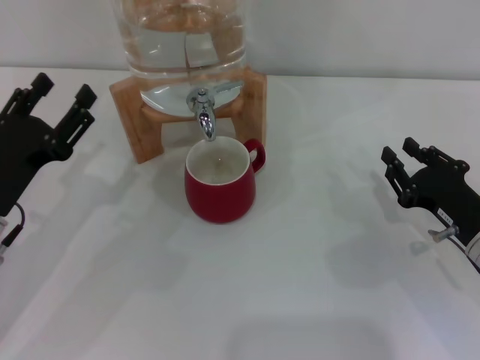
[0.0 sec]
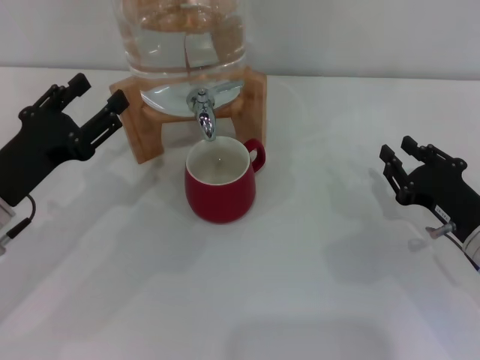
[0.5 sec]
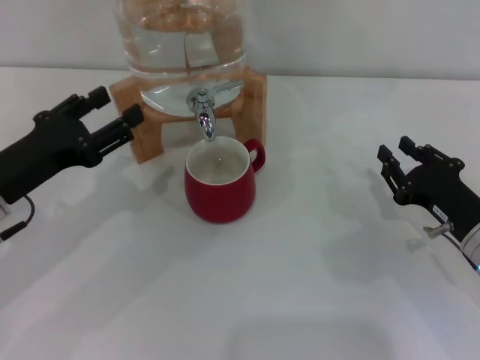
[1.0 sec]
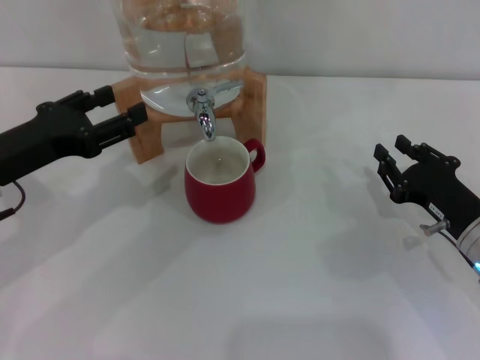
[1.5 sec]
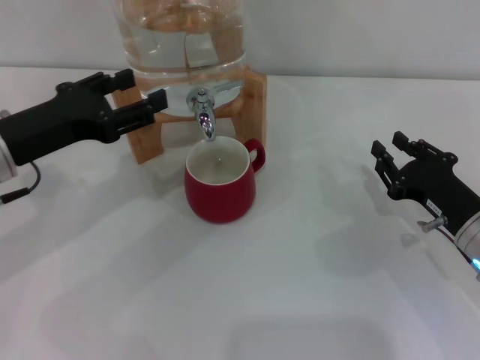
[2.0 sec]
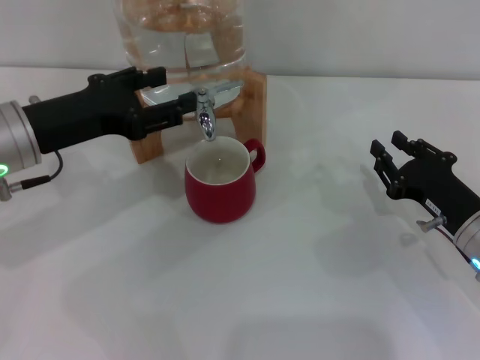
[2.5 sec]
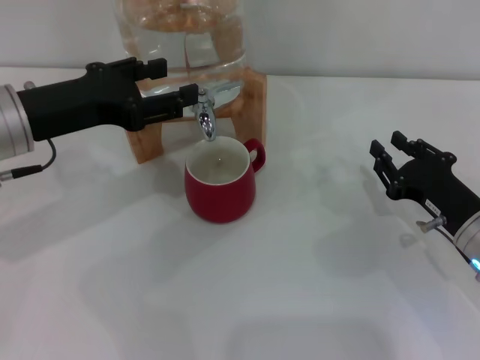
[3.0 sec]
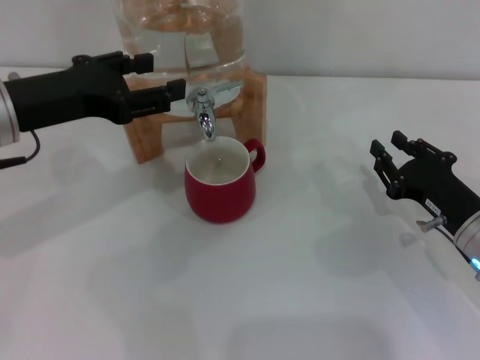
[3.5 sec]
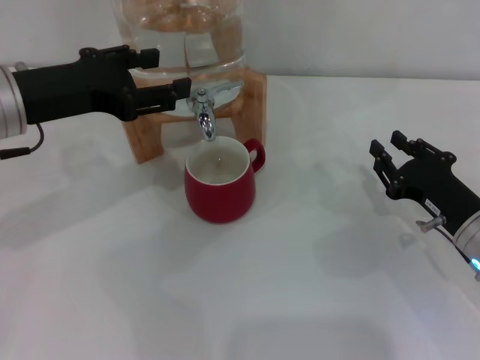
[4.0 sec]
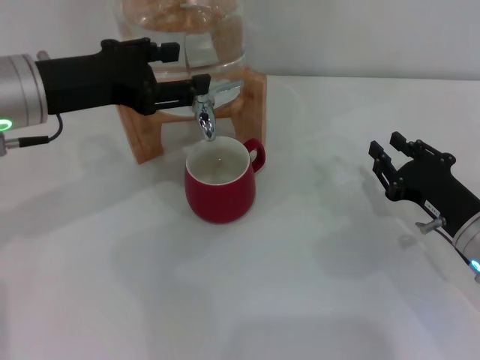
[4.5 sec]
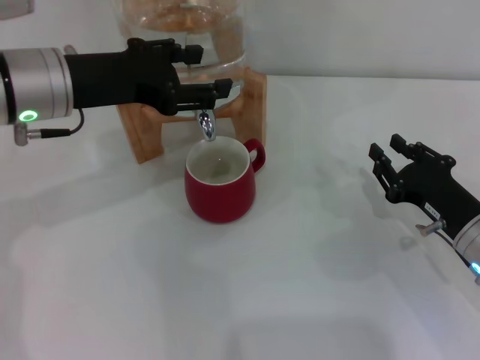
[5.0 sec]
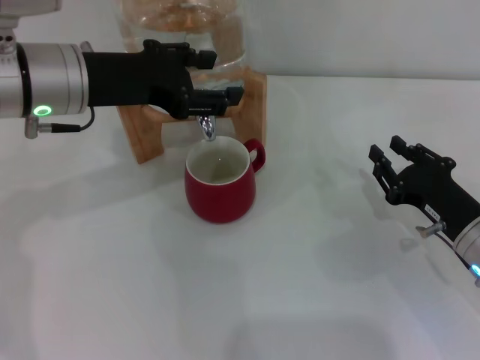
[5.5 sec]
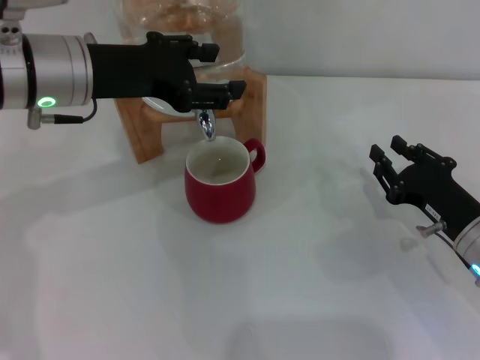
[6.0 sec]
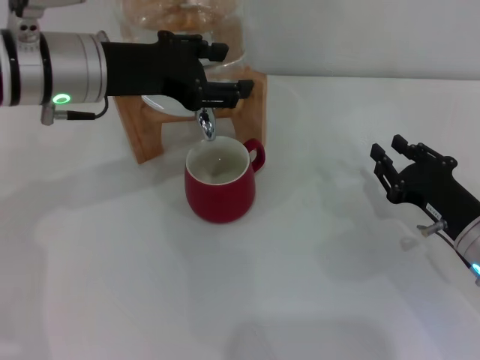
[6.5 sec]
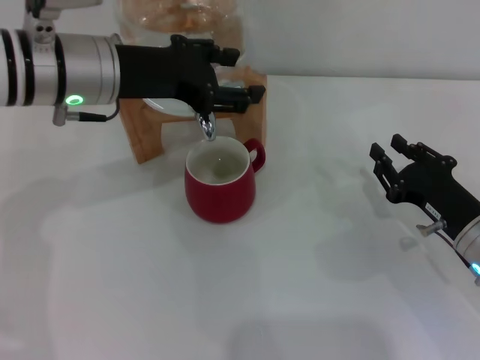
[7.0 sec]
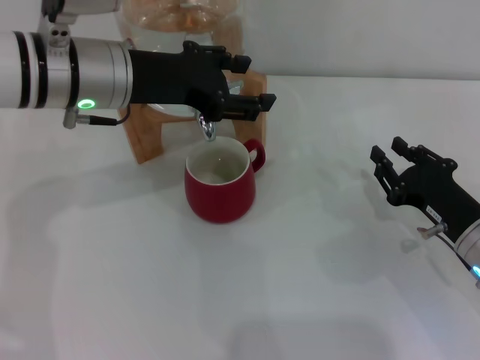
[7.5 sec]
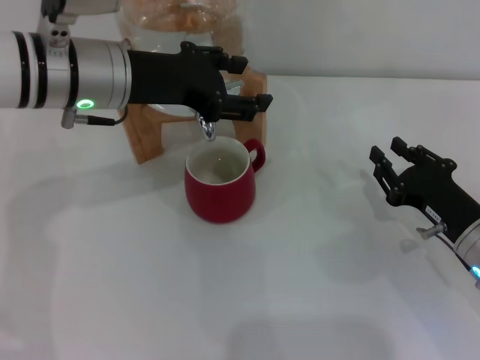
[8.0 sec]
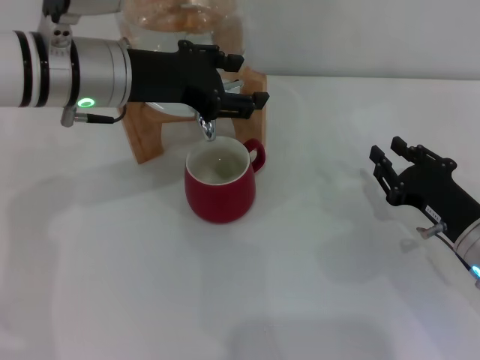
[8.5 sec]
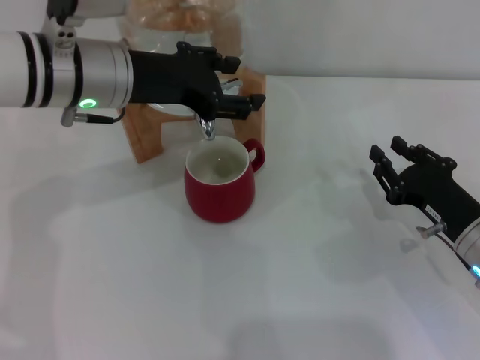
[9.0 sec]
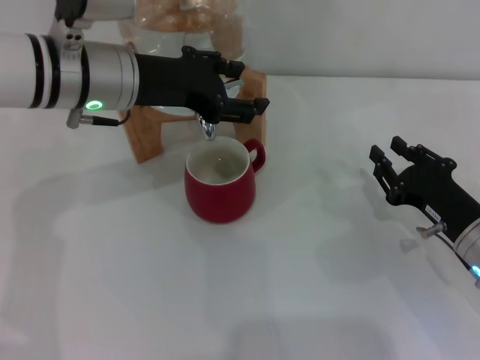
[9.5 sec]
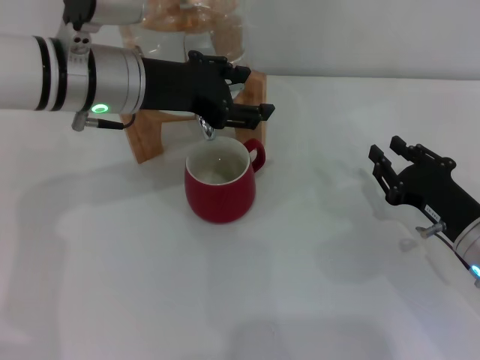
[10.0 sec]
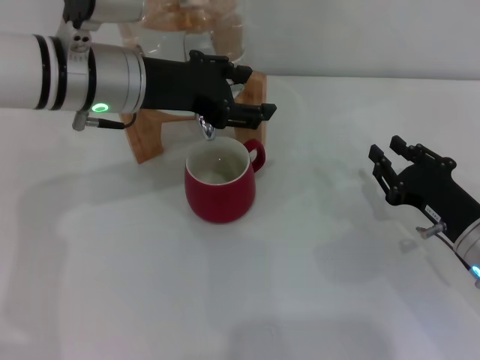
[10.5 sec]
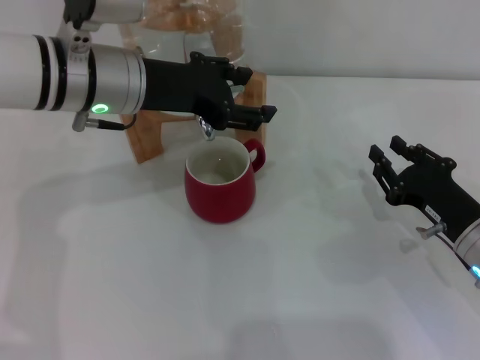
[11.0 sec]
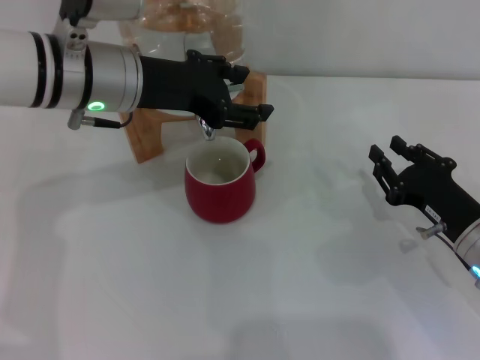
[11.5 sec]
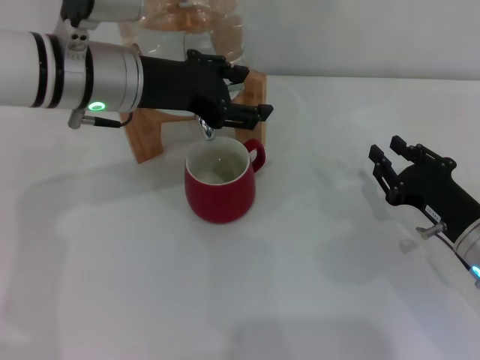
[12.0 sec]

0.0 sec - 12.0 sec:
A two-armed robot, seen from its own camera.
Task of the whole recording: the right gripper pick up the red cup and place it horizontally under the faucet, the left gripper turn on the faucet to fill the cup, and then turn off the faucet.
0.0 sec - 2.0 sec: The left gripper goes approximately 10 cm upward.
2.0 sec - 4.0 sec: The left gripper moves about 5 cm.
4.0 sec - 6.0 sec: The left gripper ends up approximately 5 cm from where it was.
6.0 sec - 8.0 sec: The grippers stay close to where they were, moving slightly.
8.0 sec - 12.0 sec: Both grippers stay put.

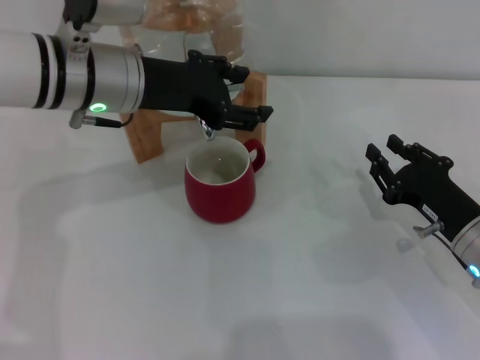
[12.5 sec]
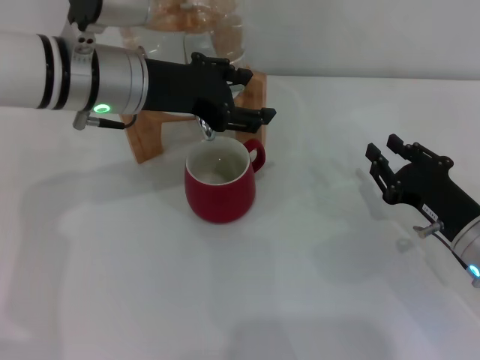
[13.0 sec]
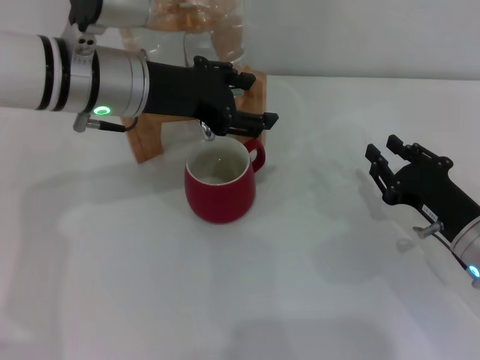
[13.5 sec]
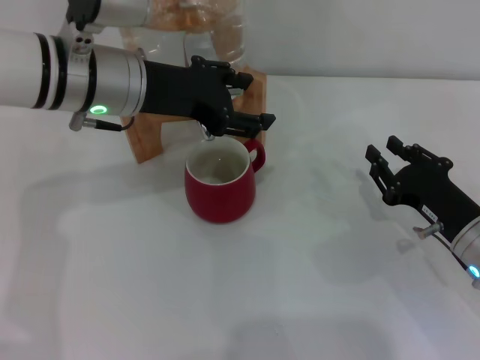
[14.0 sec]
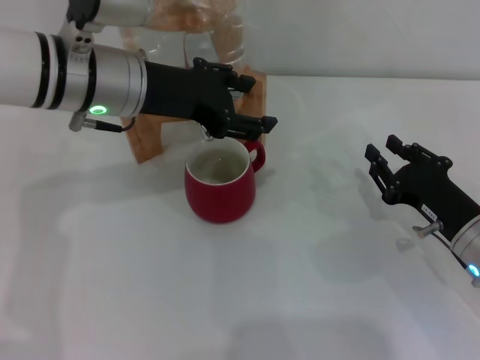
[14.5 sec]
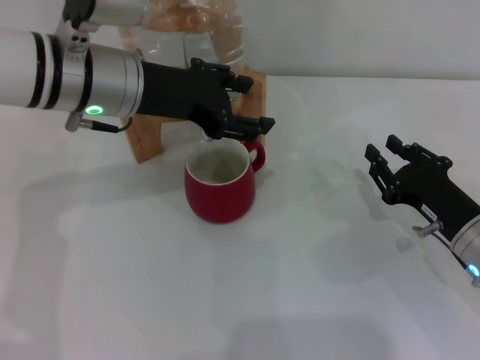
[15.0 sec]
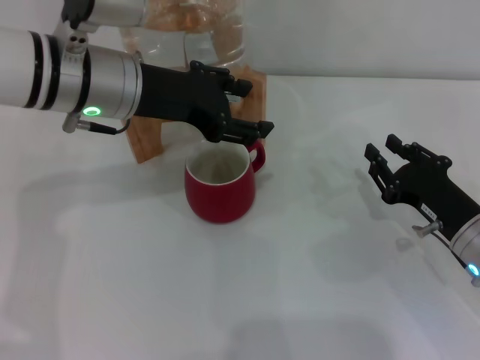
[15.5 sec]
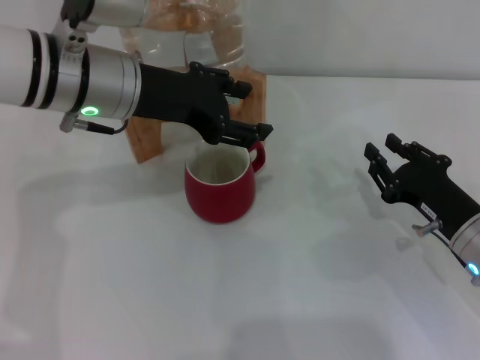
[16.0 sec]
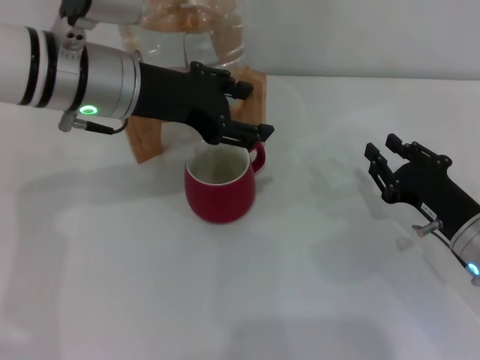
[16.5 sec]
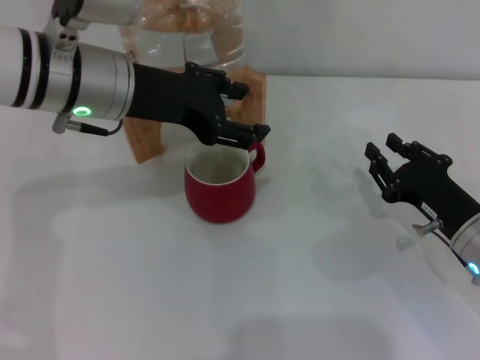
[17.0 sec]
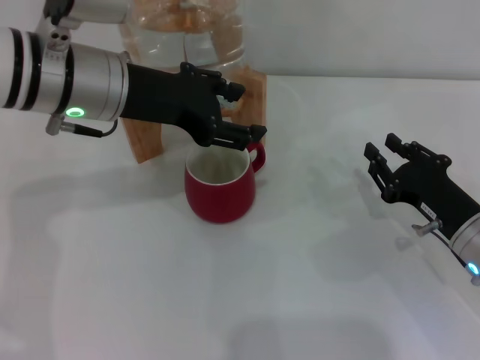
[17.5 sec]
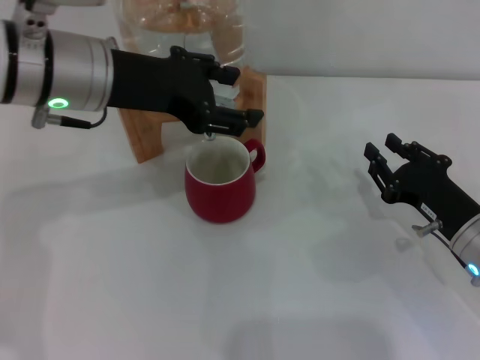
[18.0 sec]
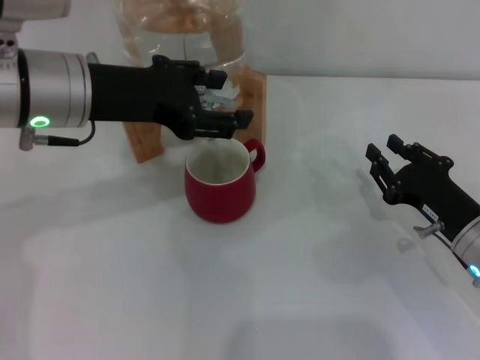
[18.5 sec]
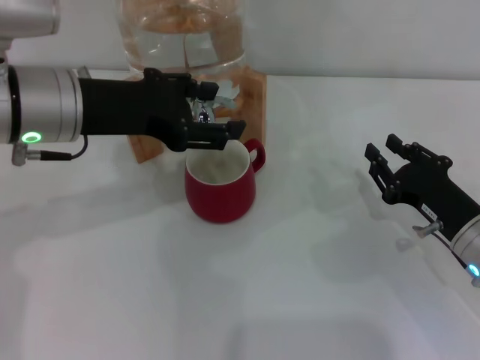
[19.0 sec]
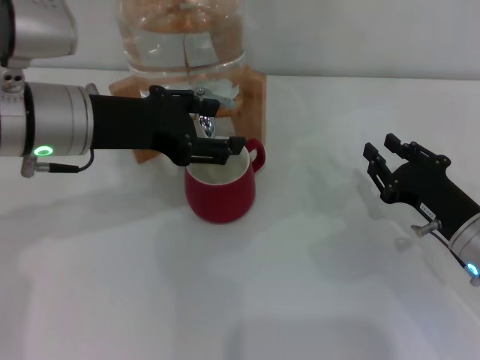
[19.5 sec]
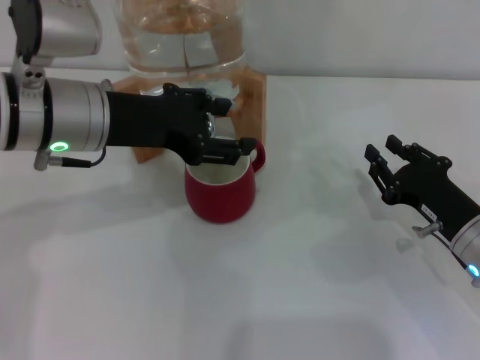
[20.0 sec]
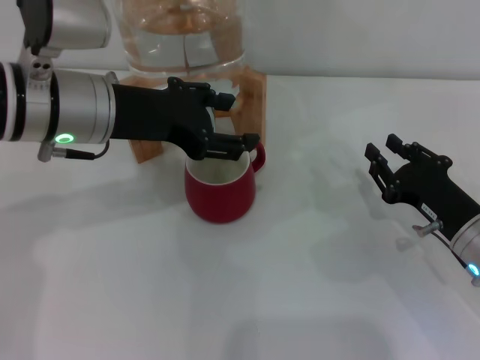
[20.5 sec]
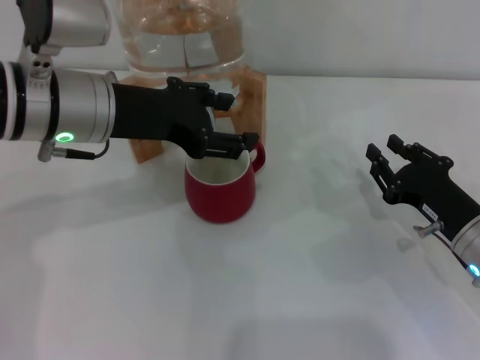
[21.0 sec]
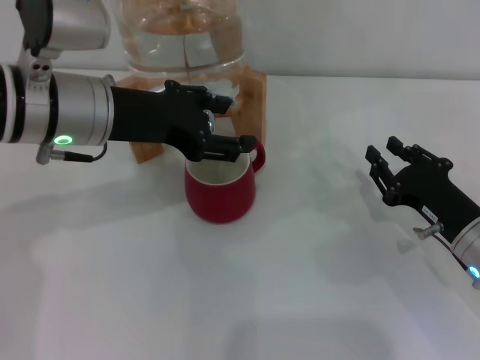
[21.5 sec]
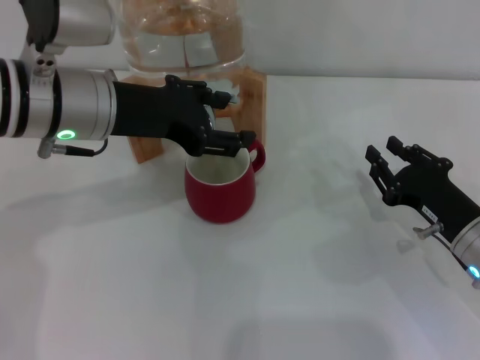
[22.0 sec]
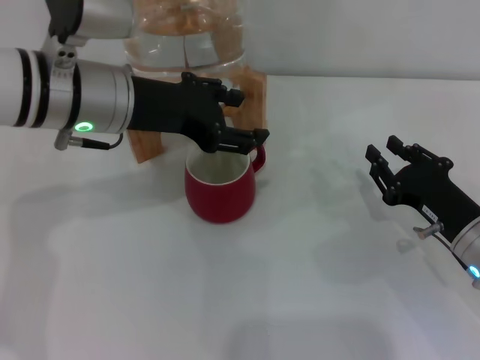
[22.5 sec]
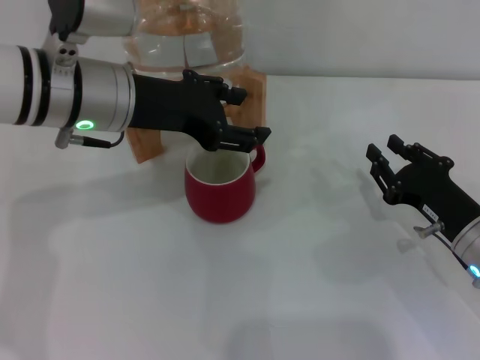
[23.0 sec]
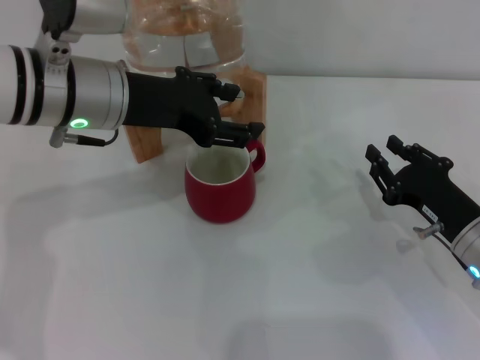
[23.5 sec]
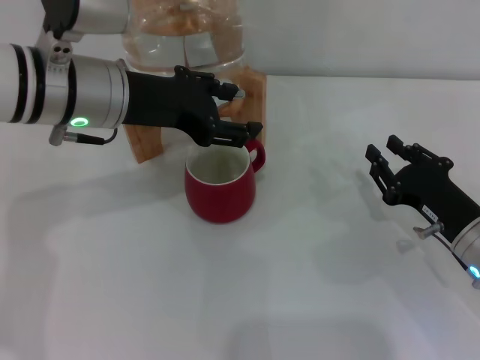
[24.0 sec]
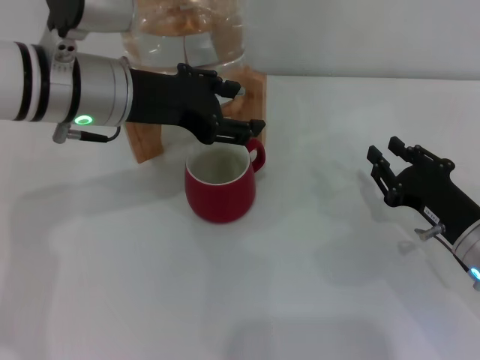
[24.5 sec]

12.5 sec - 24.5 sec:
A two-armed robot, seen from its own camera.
Task of the whole recording: the right gripper pick up the red cup and place it horizontally under the faucet, the left gripper turn on the faucet to fill the cup, and then turn off the faucet.
Step, 12.5 sec - 18.5 sec: Open the dispenser valve and fill the cup with water with the left gripper.
12.5 sec - 14.5 sec: The two grippers keep their place.
14.5 sec - 16.5 sec: Both grippers stay about where they are.
16.5 sec - 22.5 sec: The grippers move only a little.
22.5 sec - 24.5 sec: Neither gripper changes place.

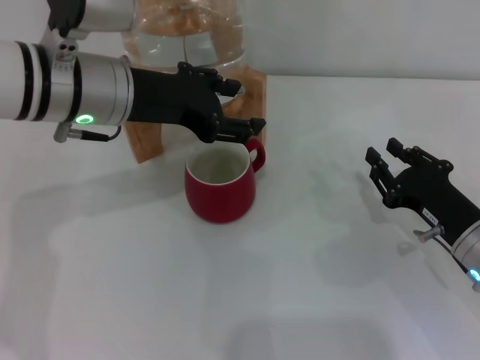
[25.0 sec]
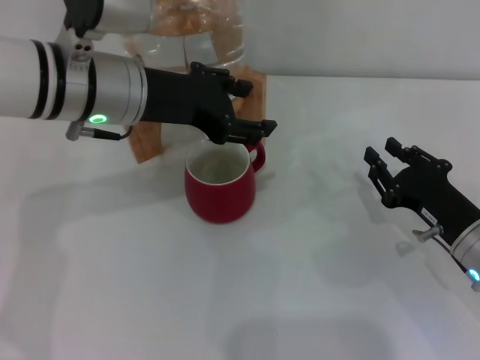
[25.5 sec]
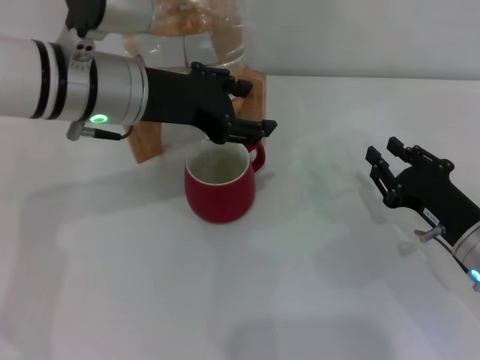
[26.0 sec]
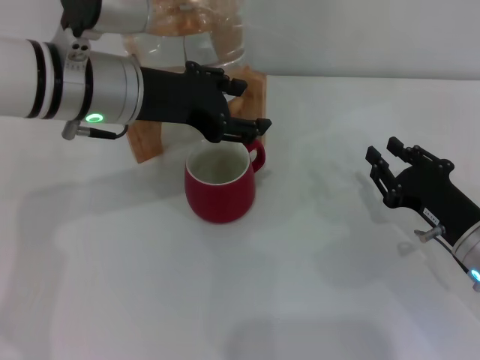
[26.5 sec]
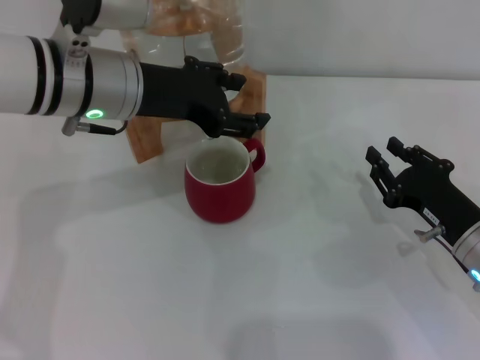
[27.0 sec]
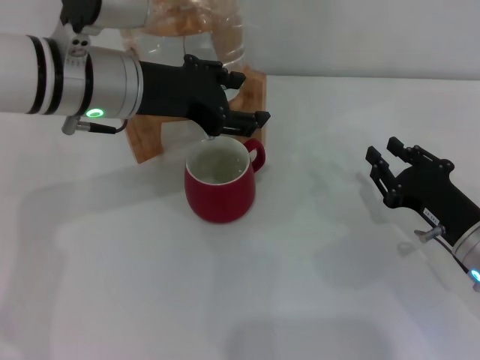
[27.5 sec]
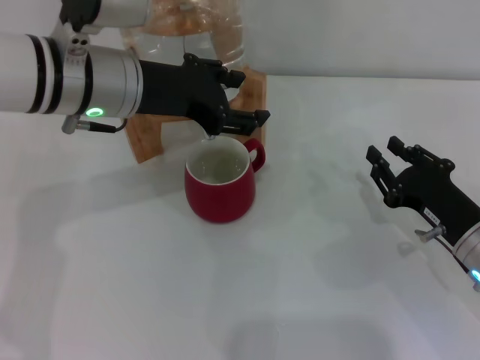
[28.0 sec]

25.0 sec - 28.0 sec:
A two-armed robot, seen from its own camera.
Task of the whole recording: the right gripper pick up the red cup and place it horizontally under the faucet, the left gripper turn on the faucet to fill the cup, and then turn off the faucet.
25.0 sec - 28.0 sec: The two grippers keep their place.
